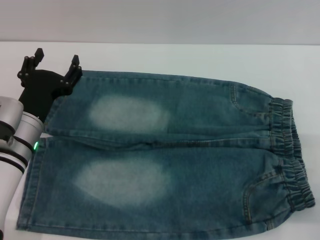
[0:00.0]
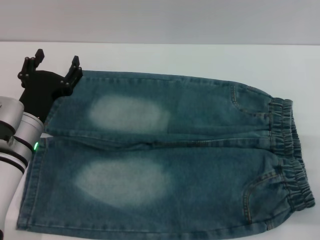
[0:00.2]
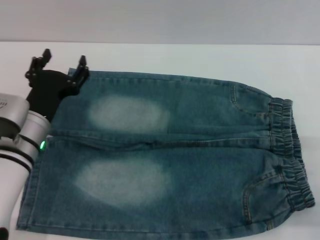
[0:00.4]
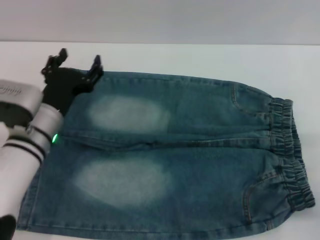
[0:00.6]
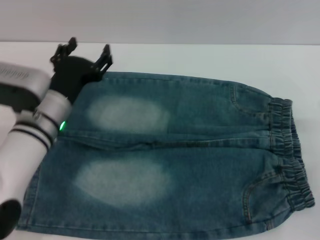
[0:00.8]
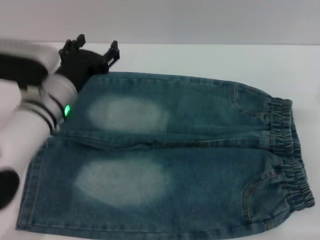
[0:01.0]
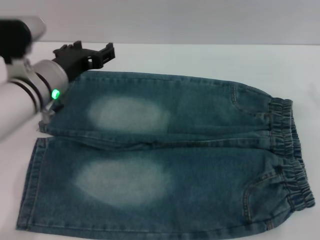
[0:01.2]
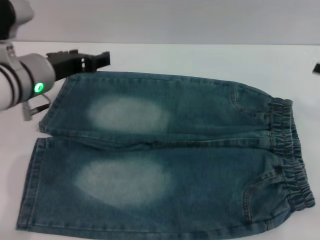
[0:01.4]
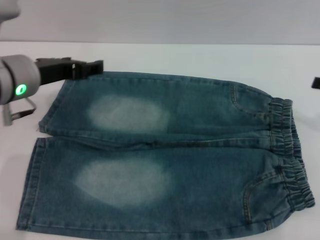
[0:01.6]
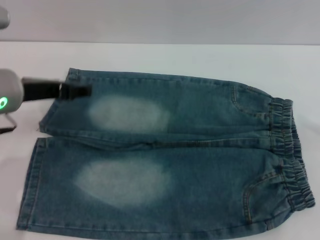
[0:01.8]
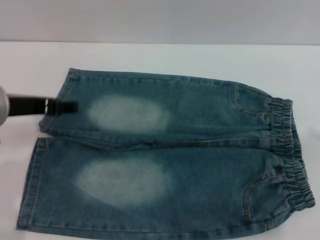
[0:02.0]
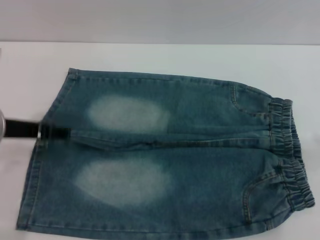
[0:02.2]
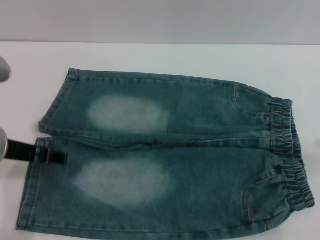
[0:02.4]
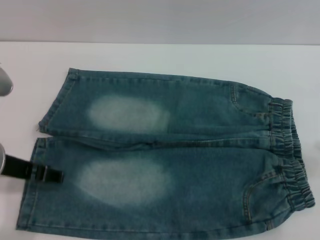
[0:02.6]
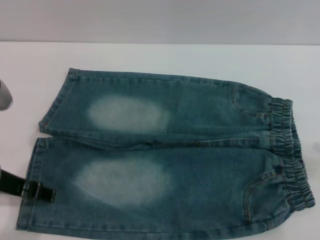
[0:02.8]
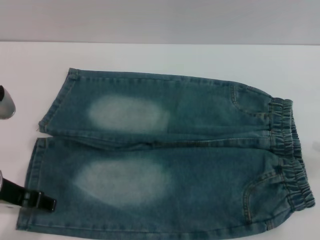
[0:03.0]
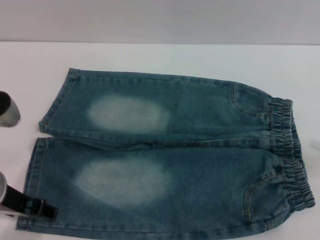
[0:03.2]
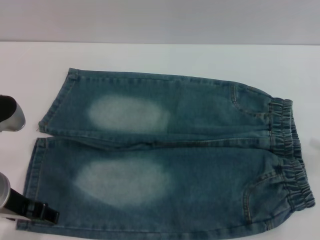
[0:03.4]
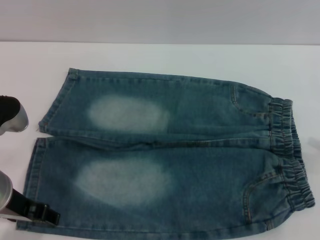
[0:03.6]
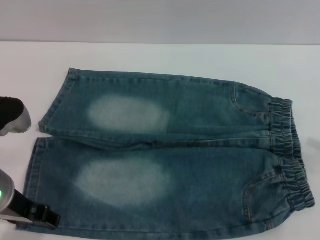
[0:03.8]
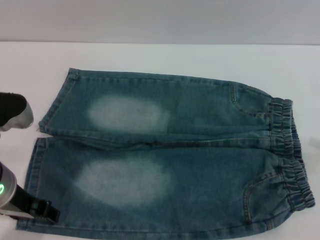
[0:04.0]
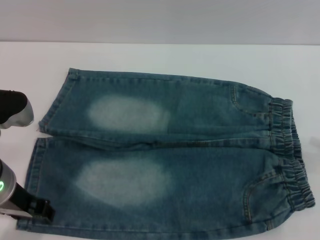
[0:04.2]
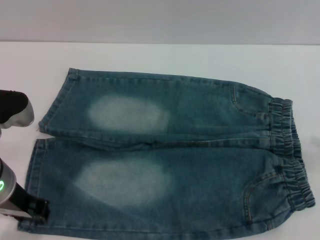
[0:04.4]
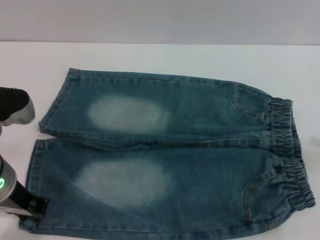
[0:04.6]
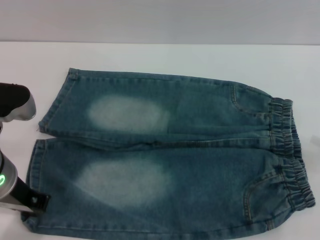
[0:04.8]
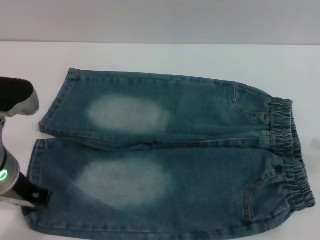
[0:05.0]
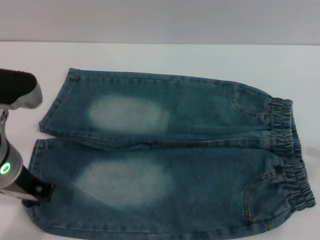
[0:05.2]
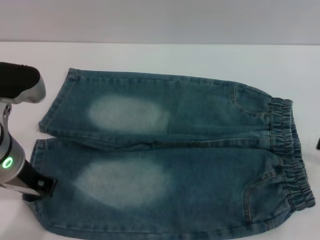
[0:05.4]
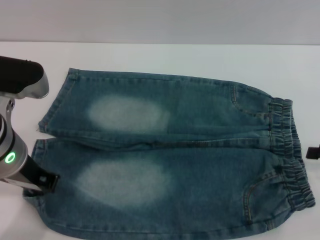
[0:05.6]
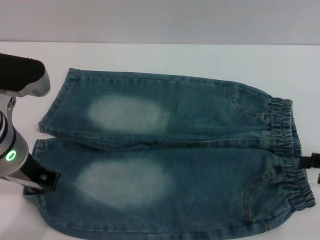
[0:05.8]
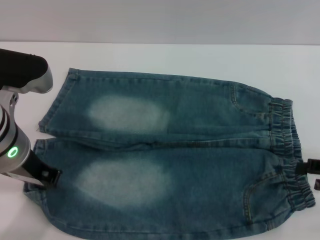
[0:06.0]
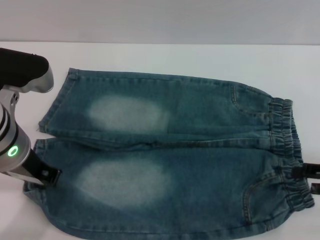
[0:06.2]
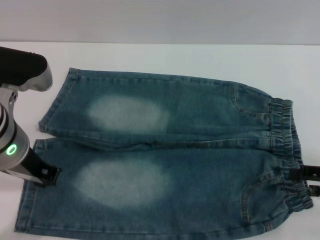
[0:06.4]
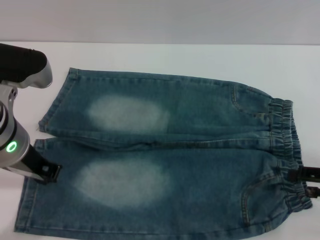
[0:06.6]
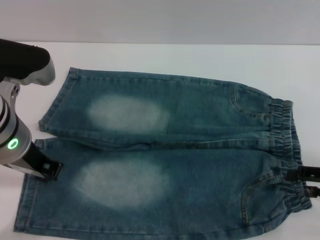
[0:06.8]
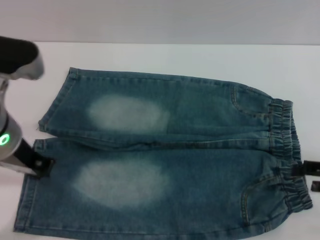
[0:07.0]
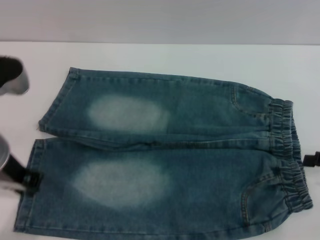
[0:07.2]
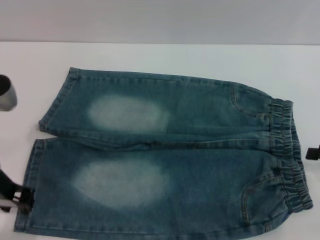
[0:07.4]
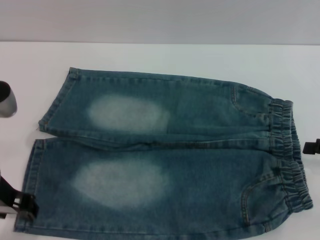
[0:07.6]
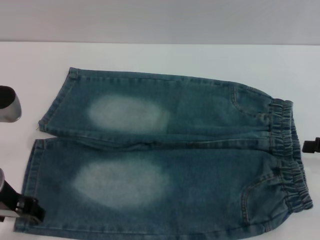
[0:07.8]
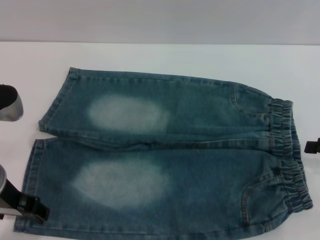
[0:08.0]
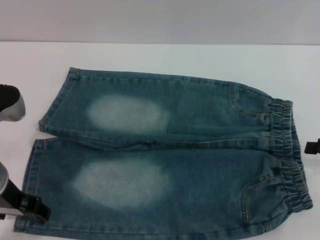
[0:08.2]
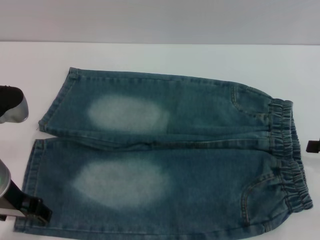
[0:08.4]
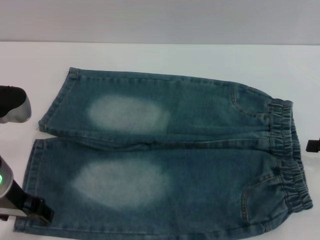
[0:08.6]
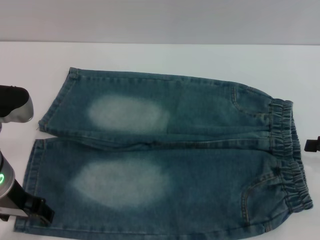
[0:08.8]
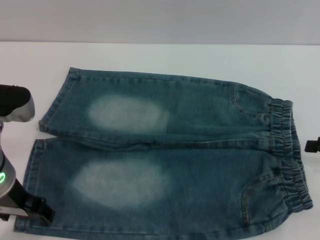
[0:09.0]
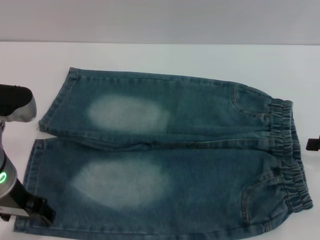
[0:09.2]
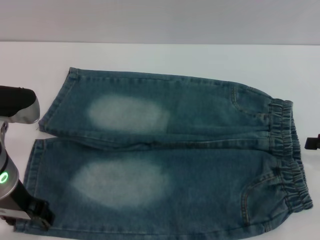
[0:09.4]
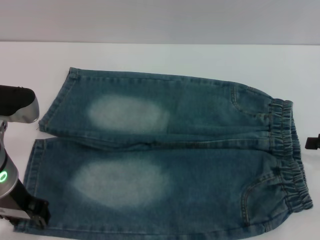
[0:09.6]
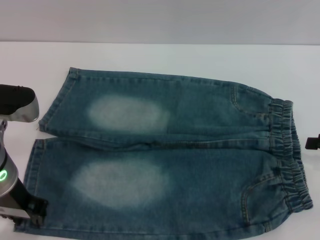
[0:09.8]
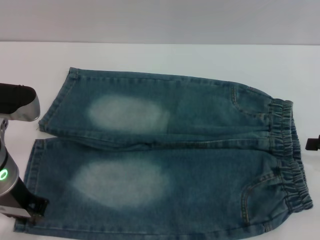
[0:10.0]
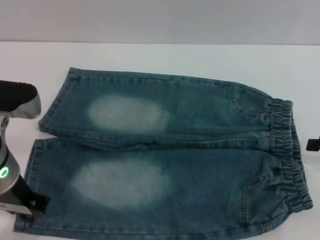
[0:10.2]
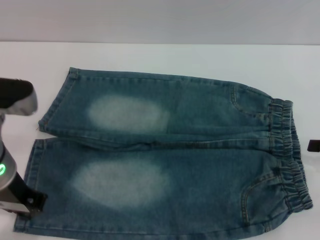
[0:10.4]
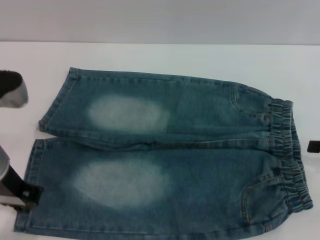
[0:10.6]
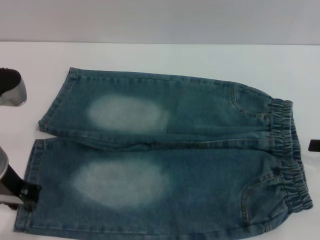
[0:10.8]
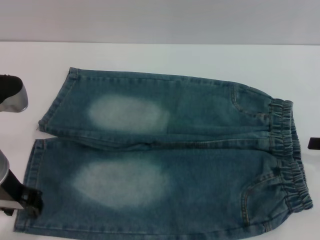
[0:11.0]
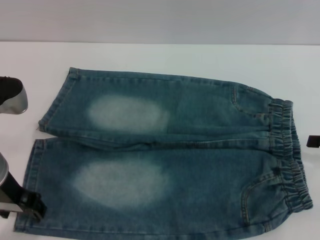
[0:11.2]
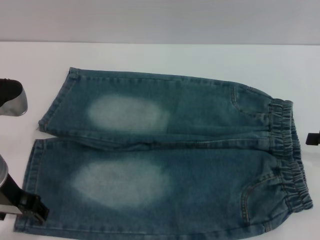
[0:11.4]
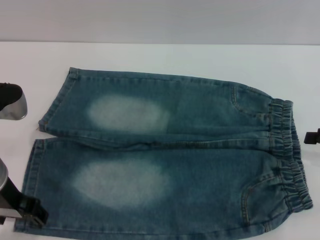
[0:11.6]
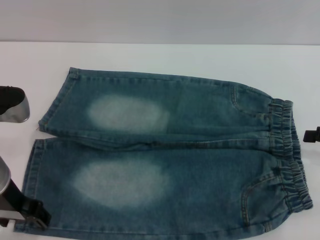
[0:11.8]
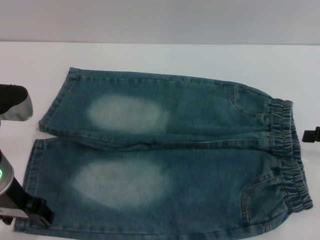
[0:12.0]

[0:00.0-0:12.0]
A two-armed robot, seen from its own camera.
0:00.0 to 0:01.6: The right gripper moves upward and forward, about 15 cm, while the left gripper is displaced upward by approximately 15 cm.
0:01.6 to 0:03.0: The left gripper travels backward by roughly 10 cm.
0:03.0 to 0:04.4: The grippers stay close to where they were, moving slightly.
0:04.4 to 0:06.0: The left gripper closes.
0:06.0 to 0:07.6: The left gripper opens its fingers.
0:07.6 to 0:09.0: The left gripper opens up.
0:09.0 to 0:10.4: The left gripper closes.
0:10.4 to 0:12.0: The left gripper opens.

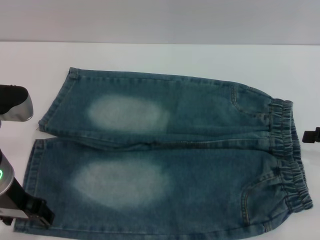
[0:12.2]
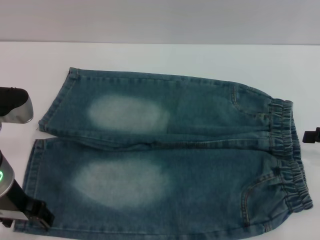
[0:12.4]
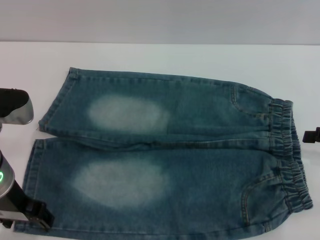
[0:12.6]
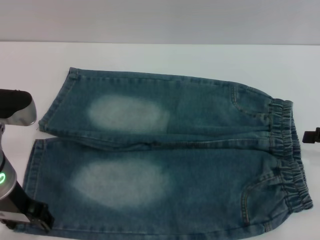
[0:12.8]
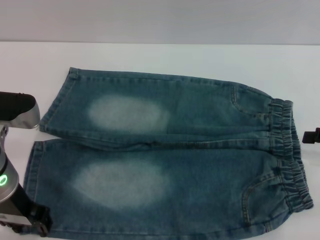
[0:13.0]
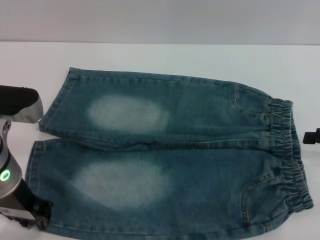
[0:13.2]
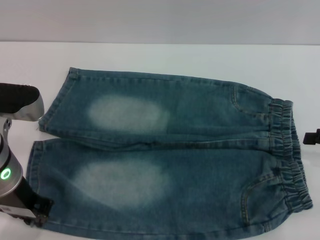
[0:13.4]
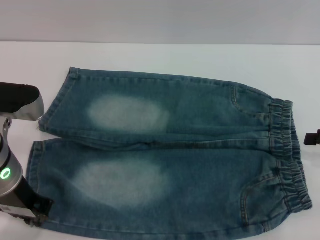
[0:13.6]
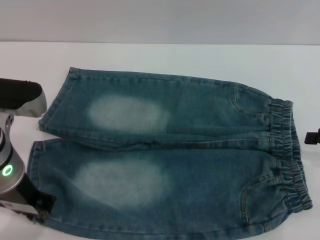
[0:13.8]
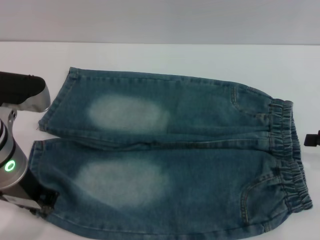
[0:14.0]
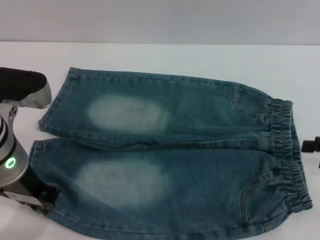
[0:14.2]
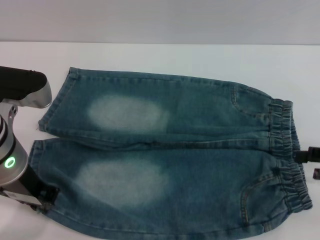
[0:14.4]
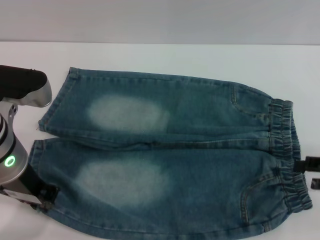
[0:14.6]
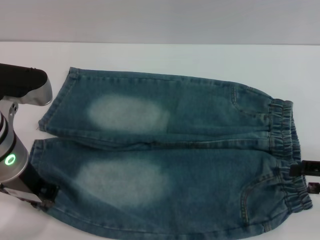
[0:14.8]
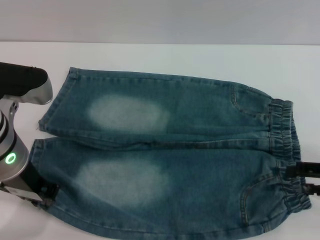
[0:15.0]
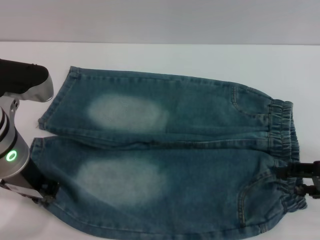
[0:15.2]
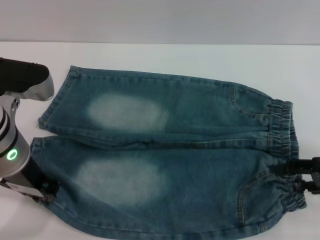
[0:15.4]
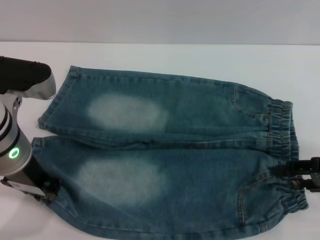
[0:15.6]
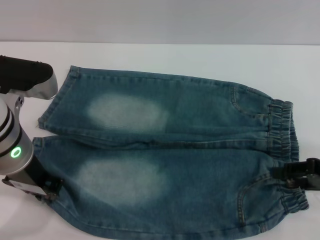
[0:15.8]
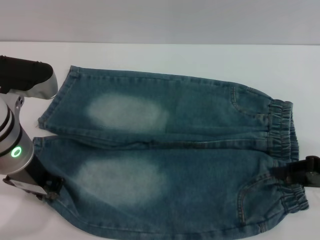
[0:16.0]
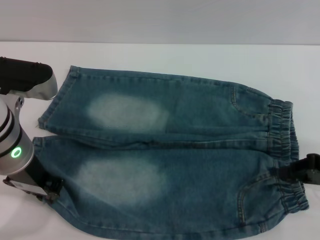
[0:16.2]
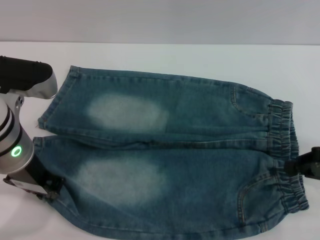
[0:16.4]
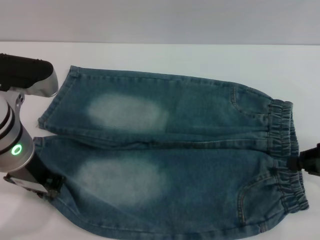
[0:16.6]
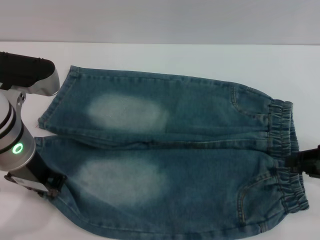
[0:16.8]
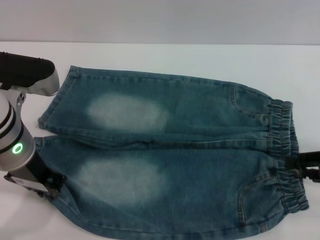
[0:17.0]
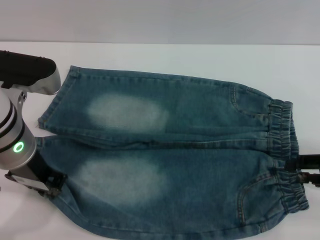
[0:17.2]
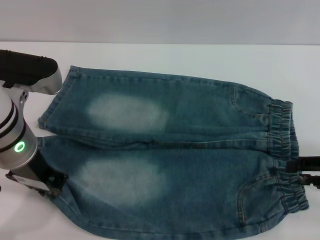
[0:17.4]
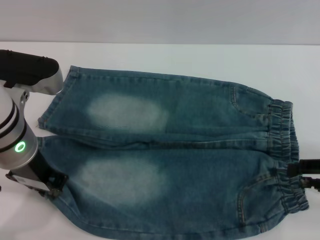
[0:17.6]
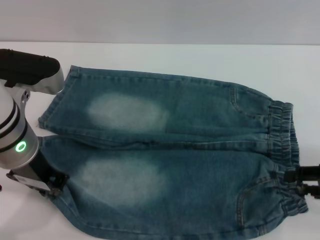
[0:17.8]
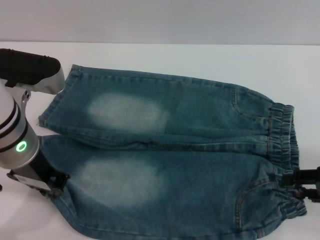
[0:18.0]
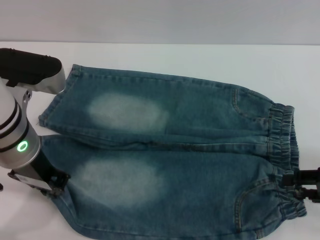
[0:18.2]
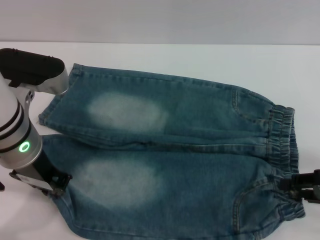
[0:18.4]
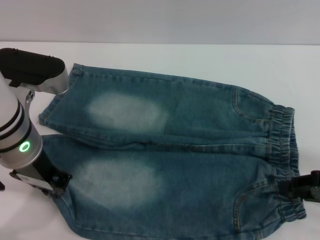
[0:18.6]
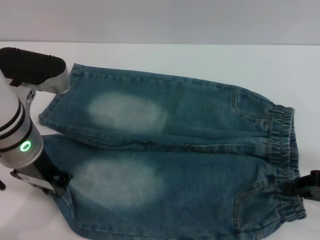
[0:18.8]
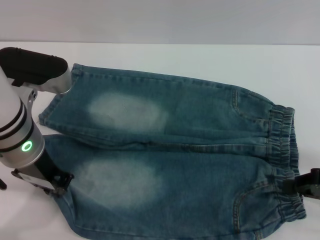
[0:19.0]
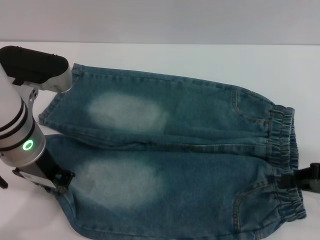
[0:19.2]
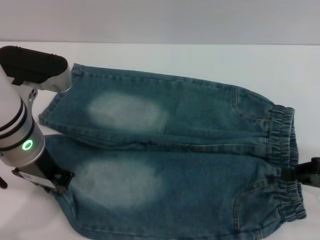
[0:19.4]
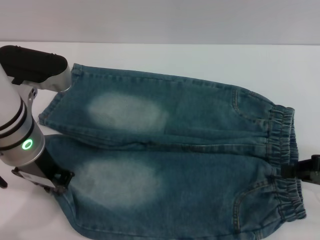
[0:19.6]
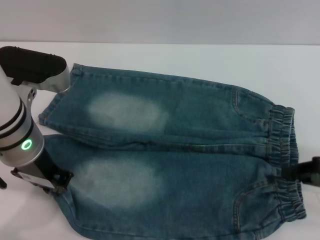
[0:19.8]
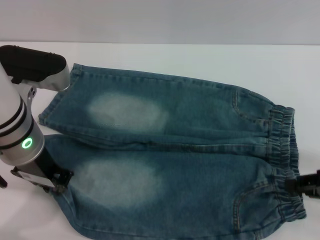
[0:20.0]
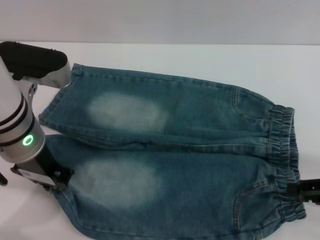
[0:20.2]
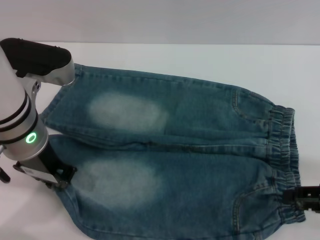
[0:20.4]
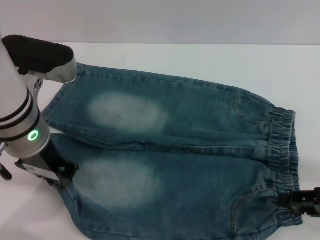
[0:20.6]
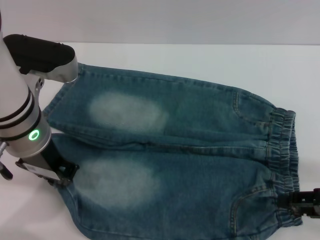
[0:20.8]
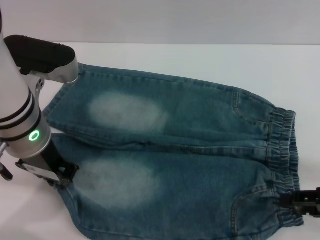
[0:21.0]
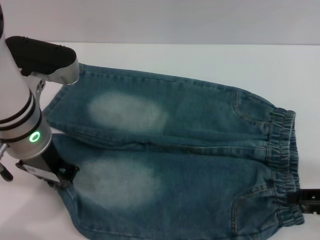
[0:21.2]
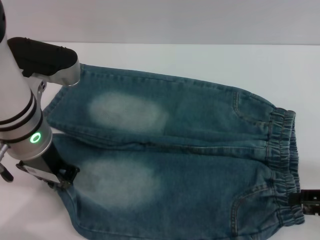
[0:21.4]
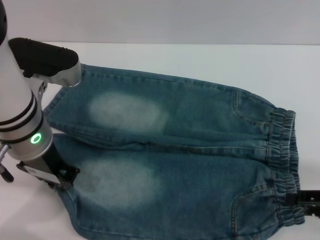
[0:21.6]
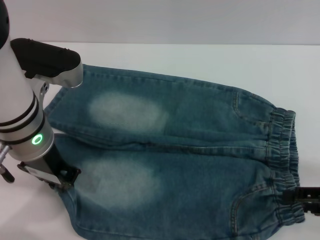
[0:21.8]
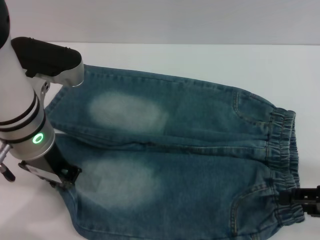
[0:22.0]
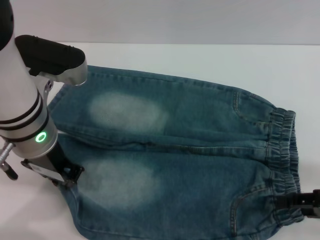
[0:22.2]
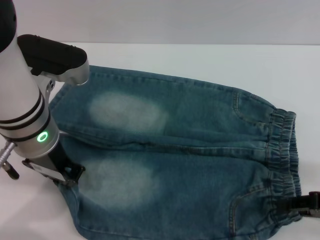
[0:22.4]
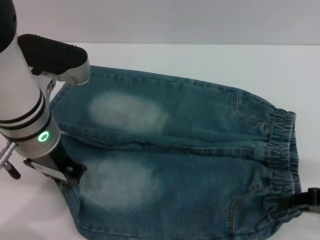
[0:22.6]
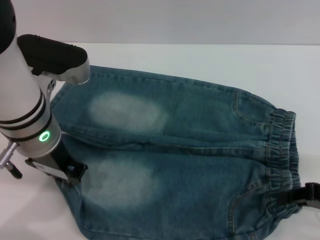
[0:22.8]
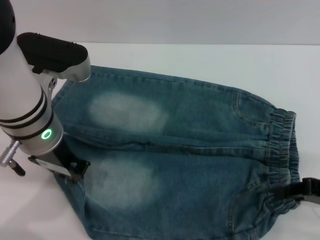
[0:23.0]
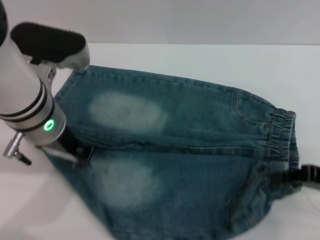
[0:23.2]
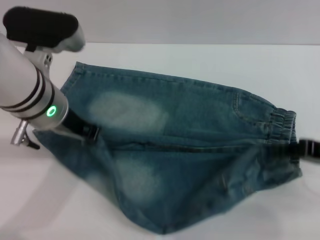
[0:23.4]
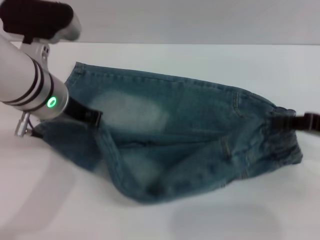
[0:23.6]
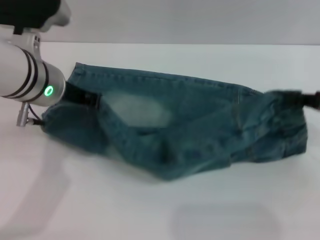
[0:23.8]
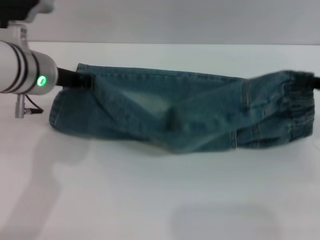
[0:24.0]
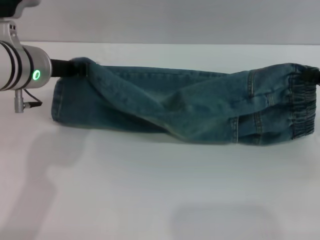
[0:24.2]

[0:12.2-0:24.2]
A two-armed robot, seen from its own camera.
0:12.2 to 0:13.8: The left gripper closes its fingers.
0:13.8 to 0:15.2: The right gripper moves some 5 cm.
0:15.2 to 0:16.6: The right gripper closes its fingers.
0:16.6 to 0:18.2: The right gripper opens its fingers.
0:18.2 to 0:19.8: The right gripper closes up.
0:19.8 to 0:21.2: The right gripper opens up.
0:21.2 to 0:22.6: The right gripper closes its fingers.
0:22.6 to 0:24.2: Both grippers move forward, approximately 5 cm.
